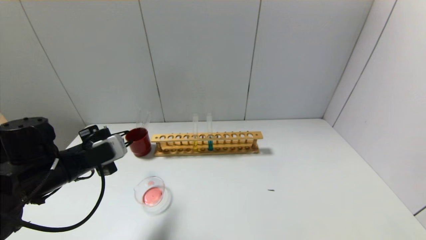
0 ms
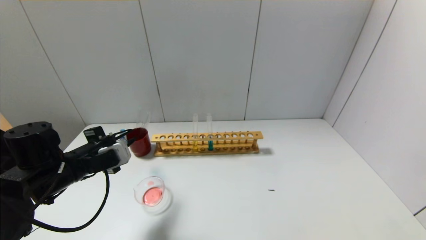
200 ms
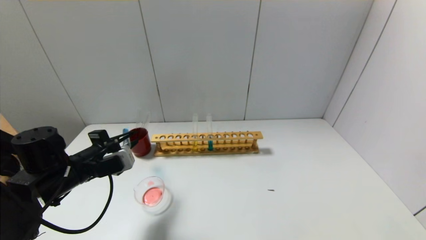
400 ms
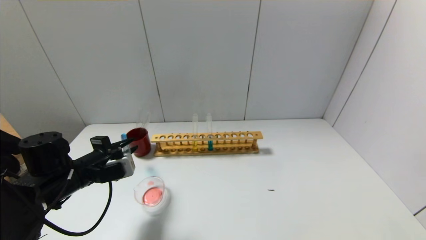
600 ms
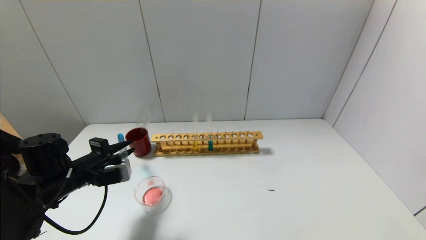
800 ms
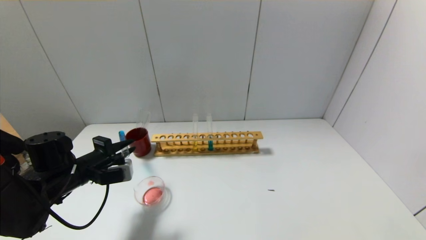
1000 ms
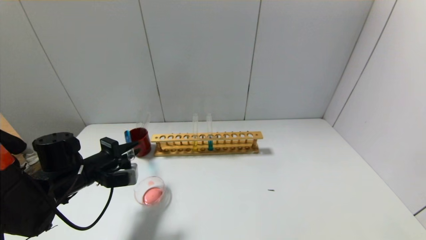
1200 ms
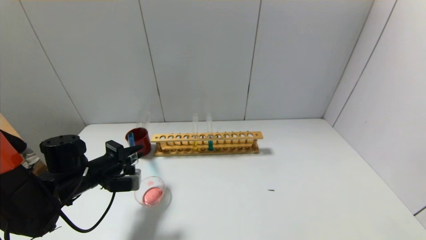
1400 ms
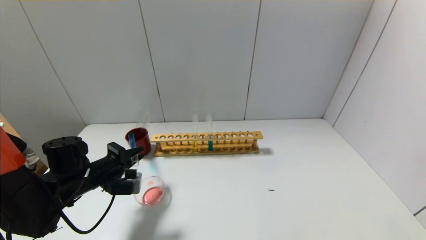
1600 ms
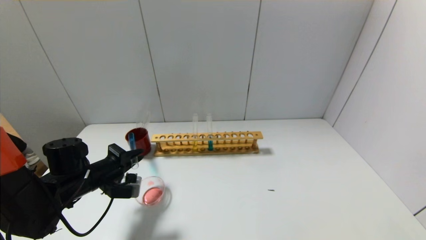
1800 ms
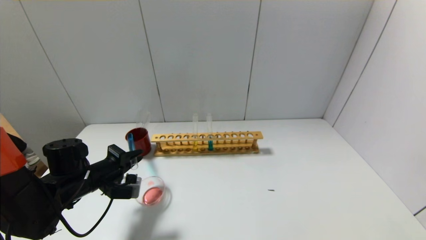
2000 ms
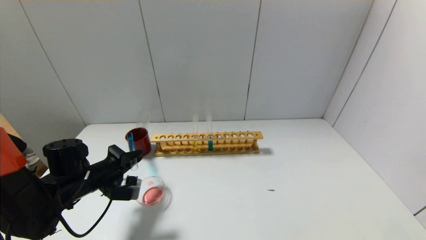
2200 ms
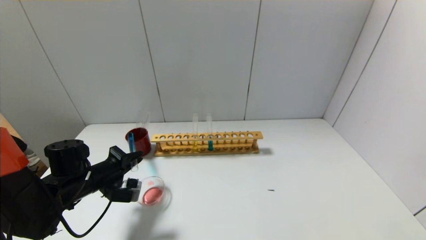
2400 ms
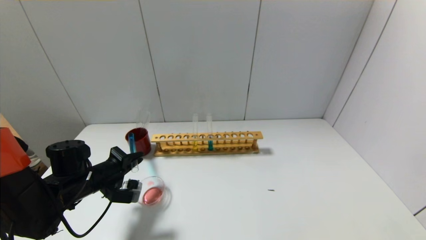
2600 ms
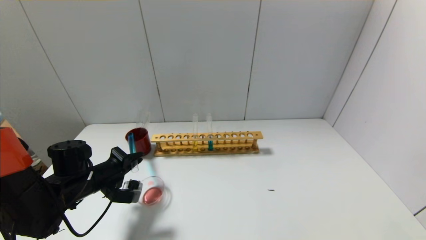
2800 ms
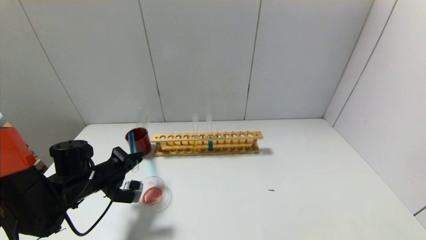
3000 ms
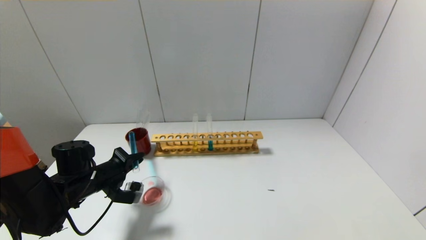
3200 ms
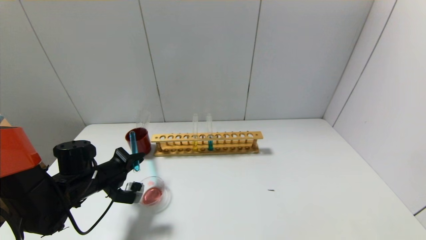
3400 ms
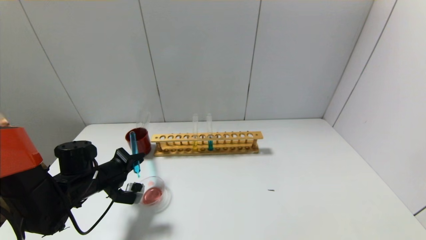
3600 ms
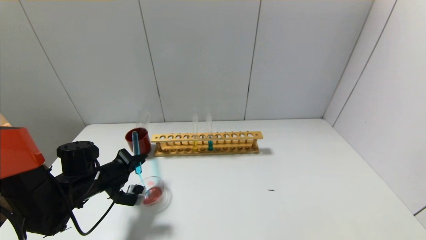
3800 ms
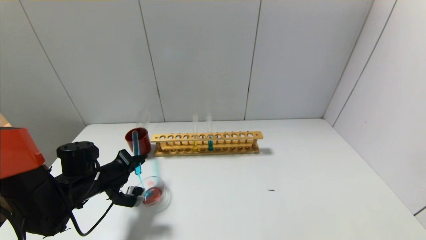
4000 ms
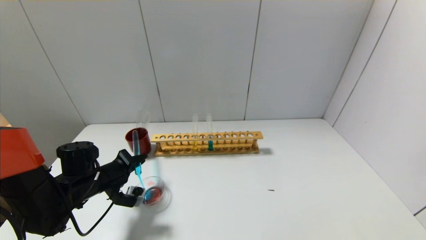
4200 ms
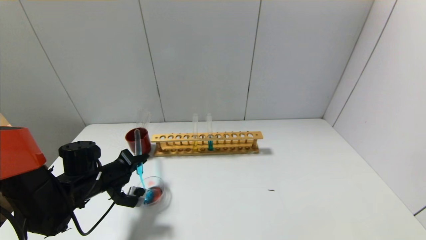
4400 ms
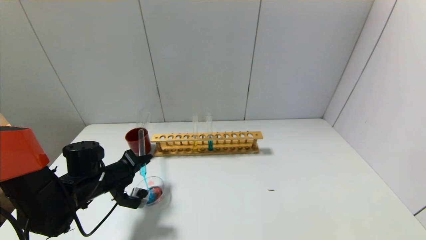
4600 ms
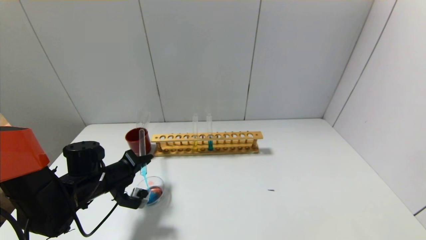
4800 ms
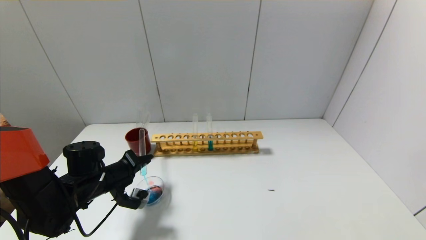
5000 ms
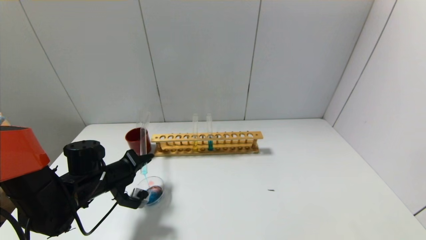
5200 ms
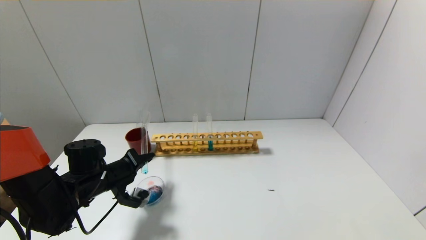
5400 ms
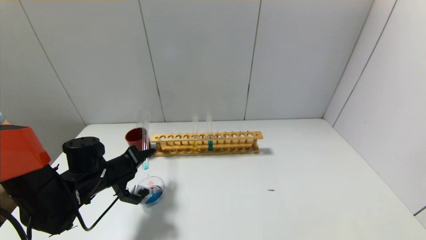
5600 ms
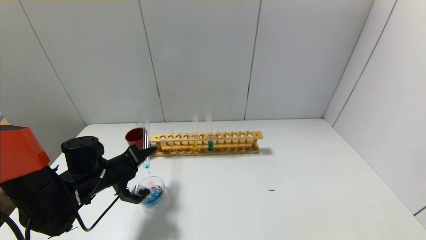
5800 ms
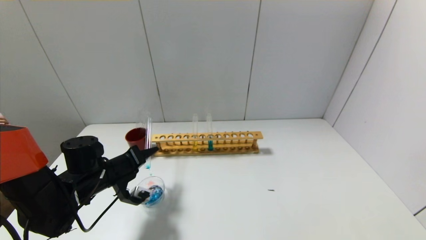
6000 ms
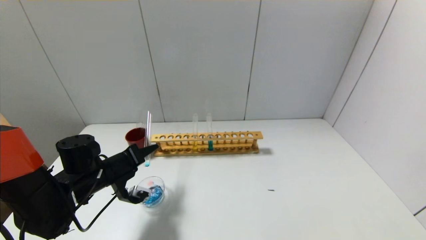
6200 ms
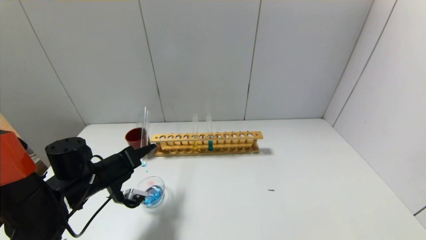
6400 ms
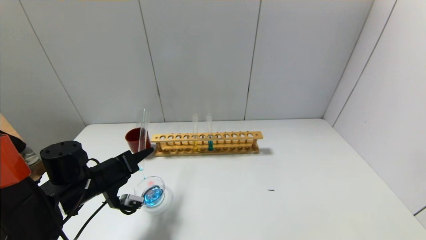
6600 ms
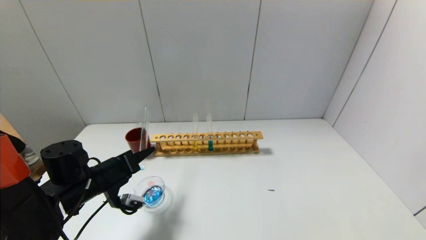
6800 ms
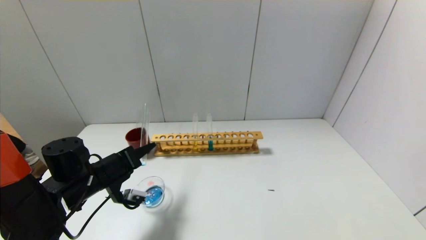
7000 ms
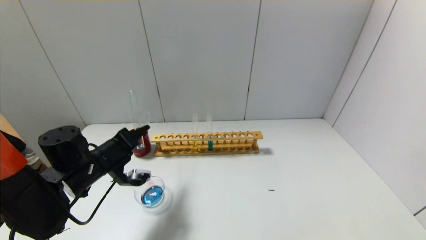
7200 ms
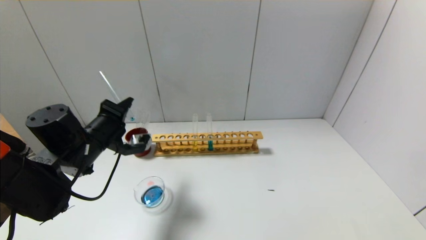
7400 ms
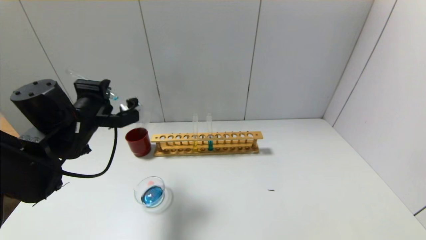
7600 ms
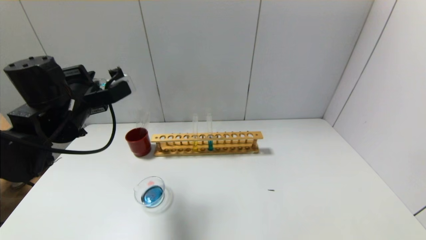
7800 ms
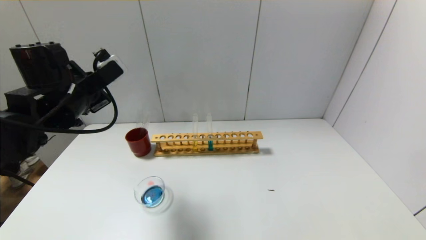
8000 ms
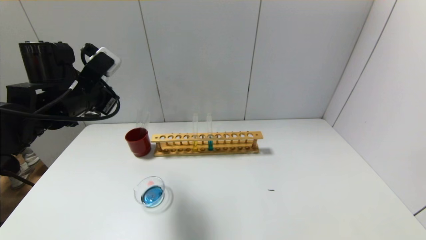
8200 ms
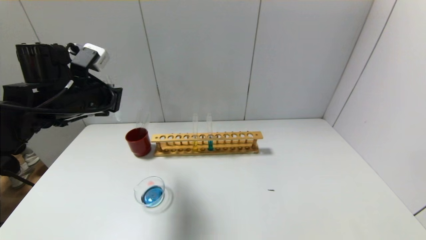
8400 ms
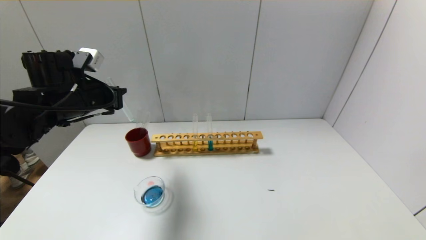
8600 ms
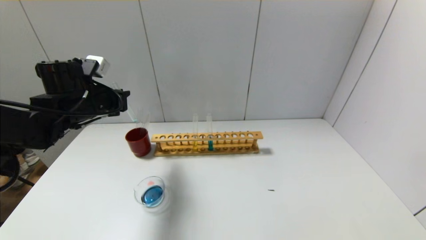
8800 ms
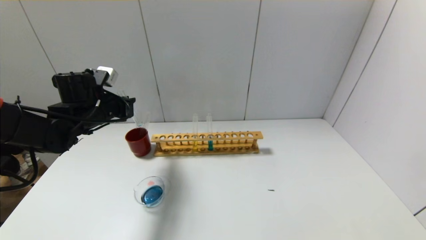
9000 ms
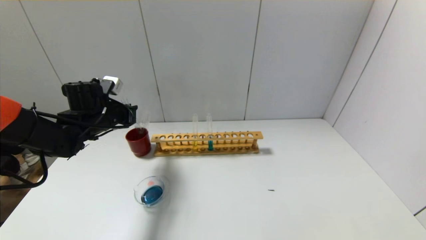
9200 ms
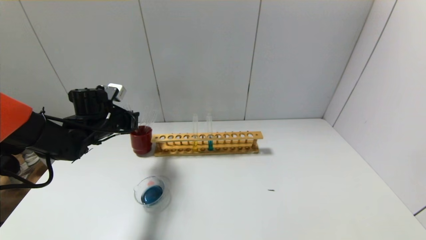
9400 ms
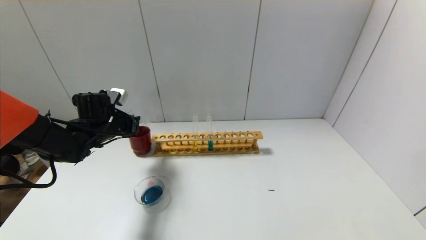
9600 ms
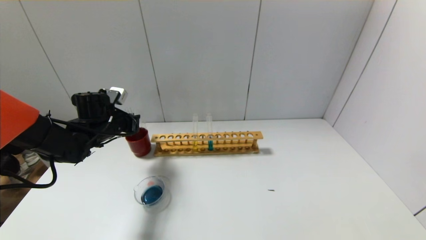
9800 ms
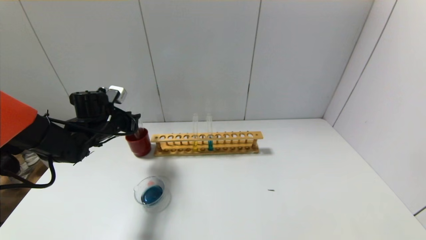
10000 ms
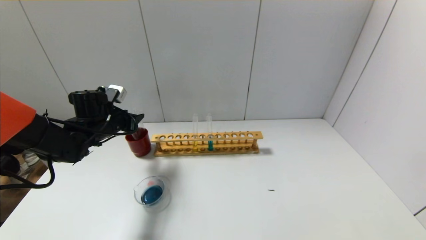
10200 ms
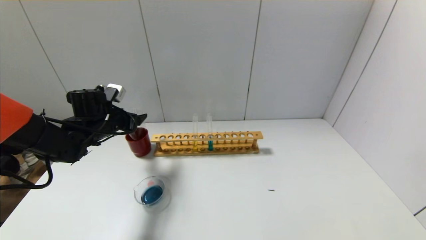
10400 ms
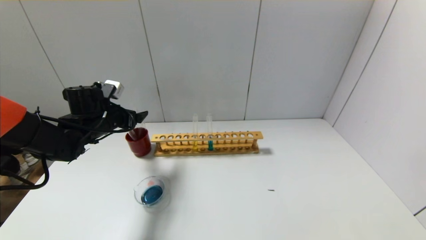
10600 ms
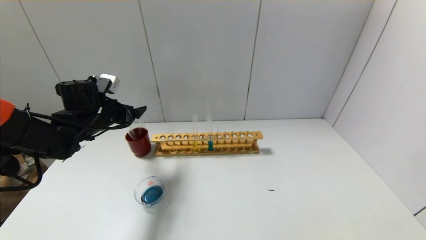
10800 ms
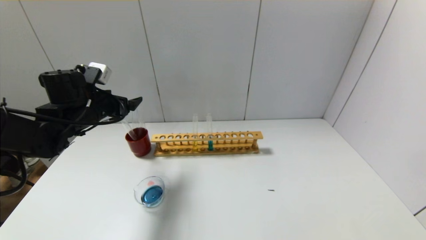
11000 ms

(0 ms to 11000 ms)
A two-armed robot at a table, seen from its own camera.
Step, 0 ms - 7000 ms: Pour the blue reagent into the graduated cylinder with the left gripper.
Step, 7200 ms - 10000 ms: Place the test tube into the brown cup with the left gripper.
0 ms - 1600 ms: The left gripper travels downward by approximately 5 cm.
1600 ms - 3200 ms: The grippers move only a little.
3200 ms - 4800 ms: The grippers stay close to where they were, moving slightly.
6200 ms - 7800 ms: The left gripper heads upward, covering about 15 cm.
7800 ms - 9400 ms: The left gripper is displaced downward and forward by about 15 cm.
9400 ms - 11000 ms: The left gripper is displaced upward by approximately 5 cm, and opens up.

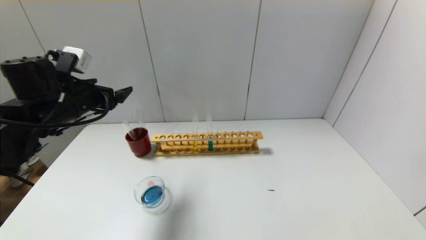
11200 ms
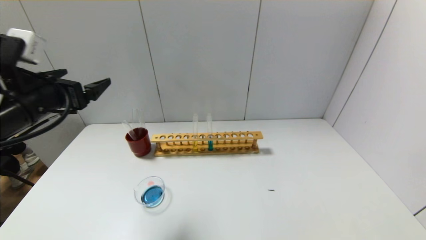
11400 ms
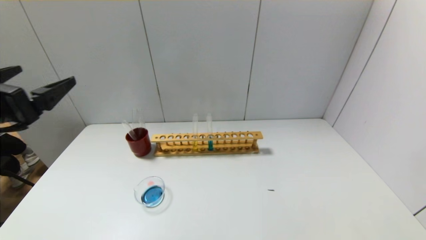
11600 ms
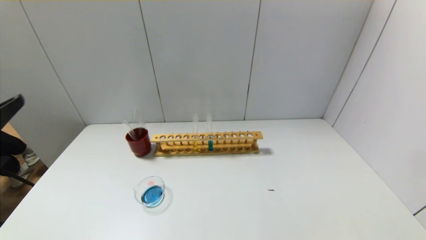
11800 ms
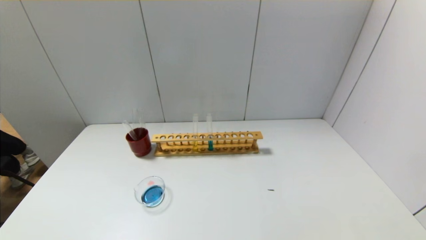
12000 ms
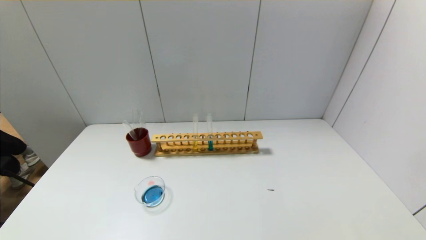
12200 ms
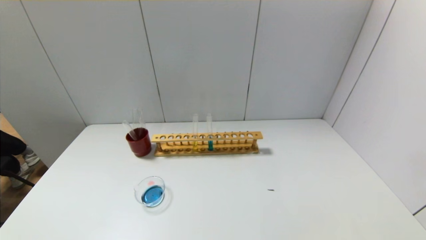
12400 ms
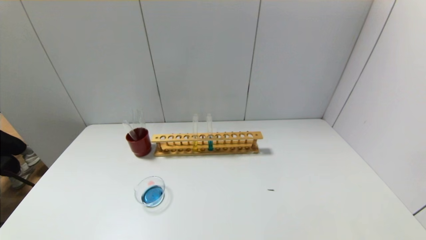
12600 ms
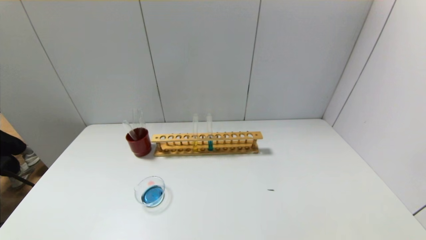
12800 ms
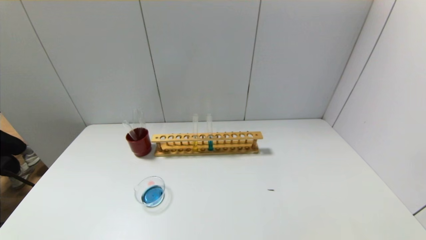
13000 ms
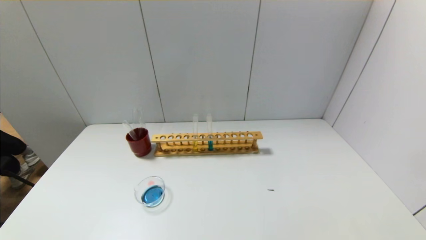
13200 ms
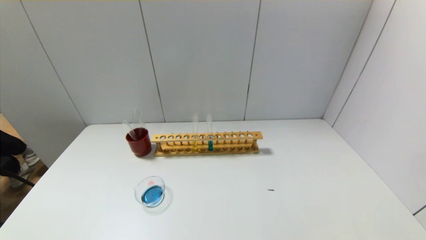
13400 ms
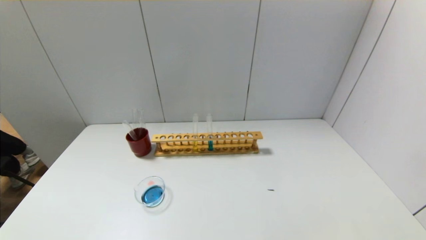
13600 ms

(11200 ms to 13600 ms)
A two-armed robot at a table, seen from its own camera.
11200 ms - 12400 ms: The left gripper heads backward, covering some 35 cm.

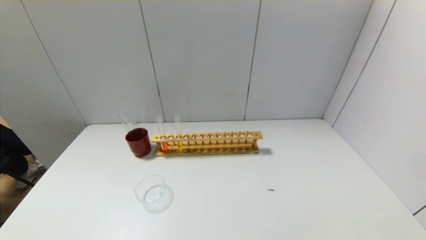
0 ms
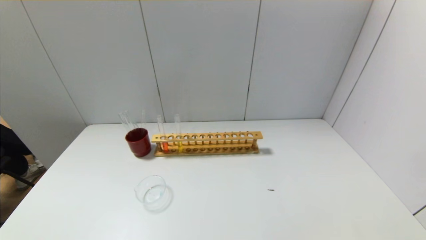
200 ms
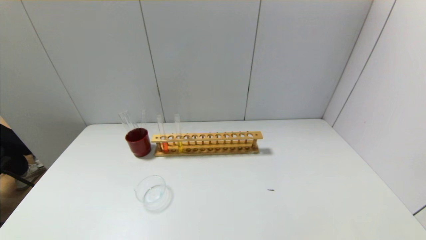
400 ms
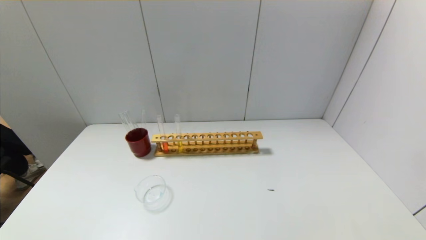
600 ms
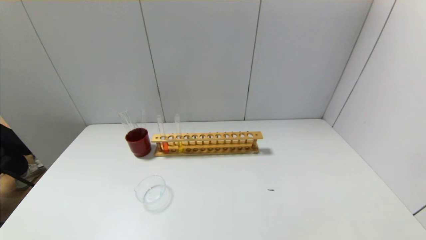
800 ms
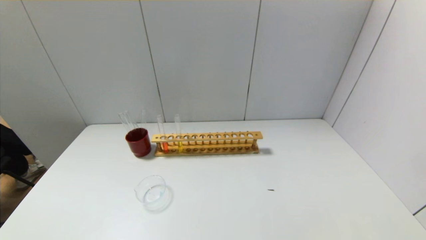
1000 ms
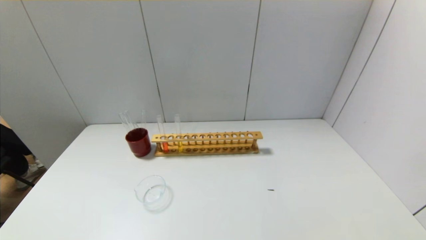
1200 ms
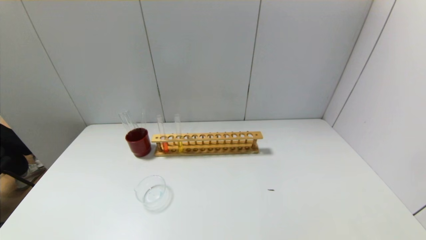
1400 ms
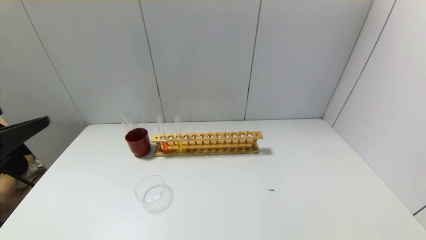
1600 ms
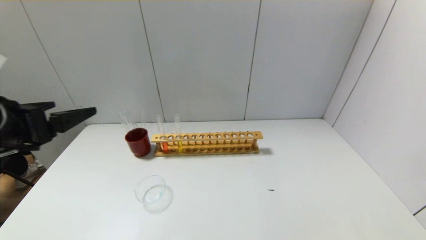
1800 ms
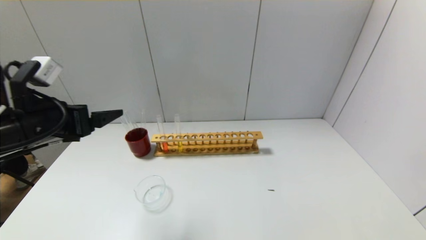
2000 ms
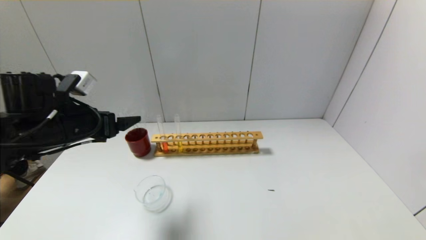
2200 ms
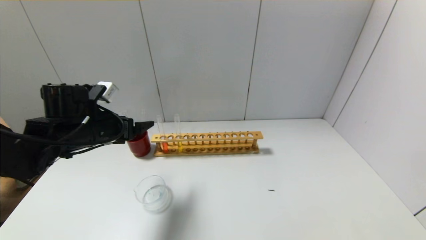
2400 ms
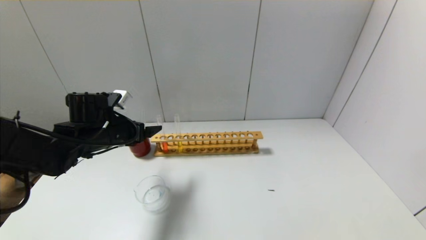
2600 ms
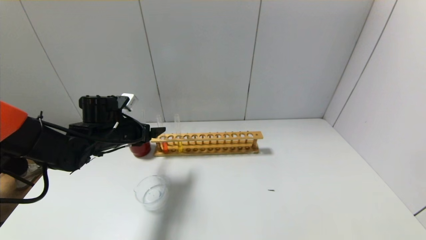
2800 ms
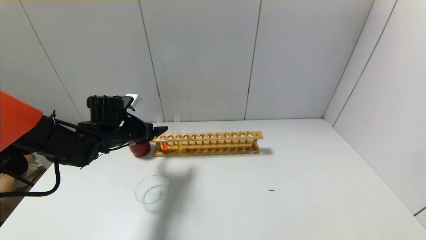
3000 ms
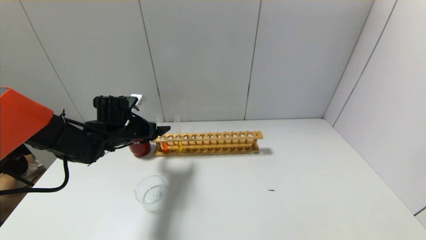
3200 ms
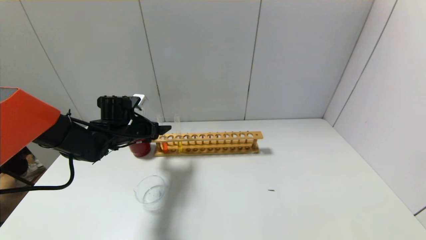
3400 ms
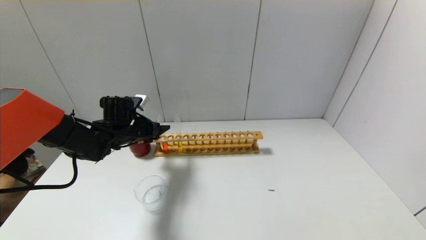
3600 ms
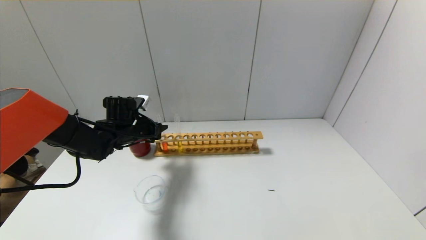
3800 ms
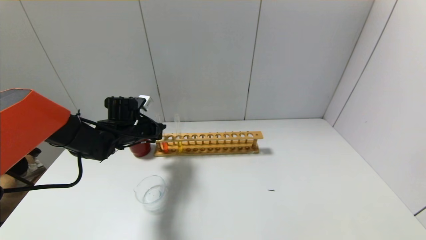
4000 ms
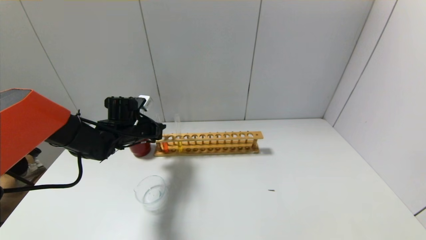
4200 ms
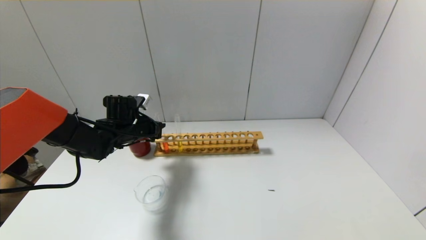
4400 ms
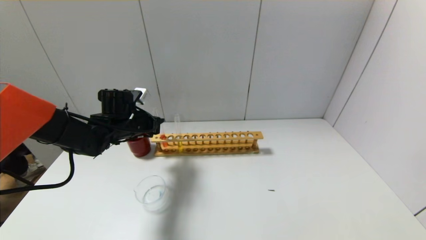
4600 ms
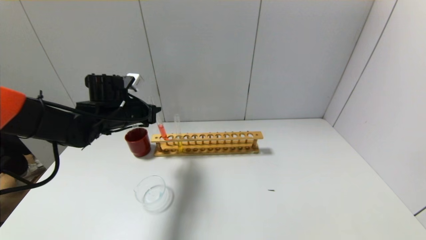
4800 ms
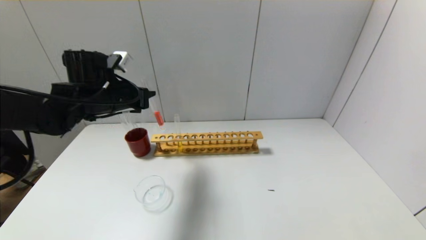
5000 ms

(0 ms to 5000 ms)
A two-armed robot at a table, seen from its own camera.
Step, 0 ms - 4000 ms: Grasp the red reagent with the left gripper.
1600 ms - 3400 ms: The left gripper travels forward and downward by approximately 35 cm.
3400 ms - 5000 ms: The left gripper goes some 10 cm upward, and closes its fingers.
